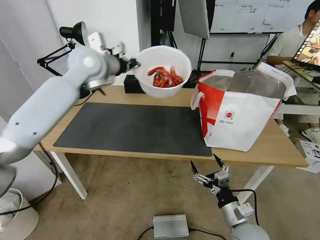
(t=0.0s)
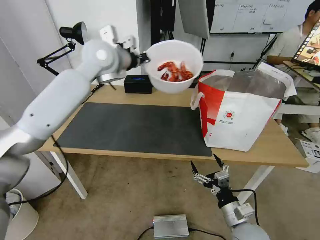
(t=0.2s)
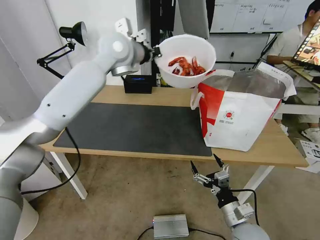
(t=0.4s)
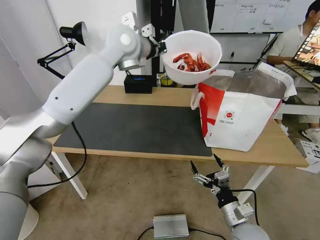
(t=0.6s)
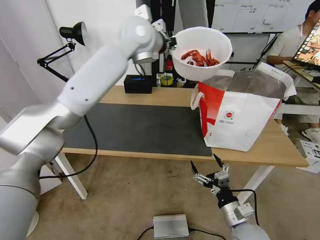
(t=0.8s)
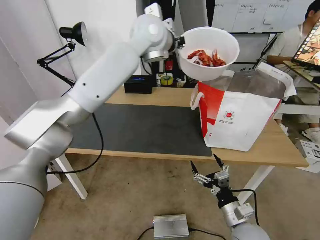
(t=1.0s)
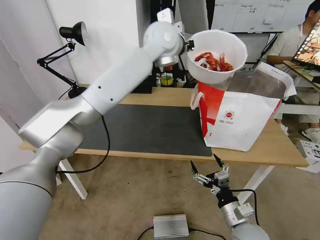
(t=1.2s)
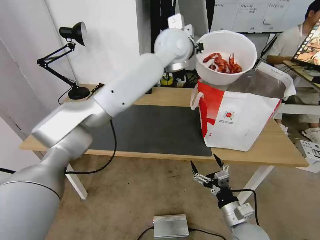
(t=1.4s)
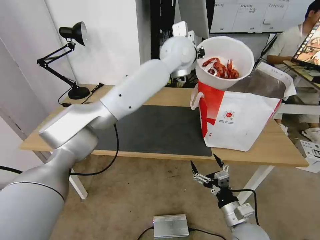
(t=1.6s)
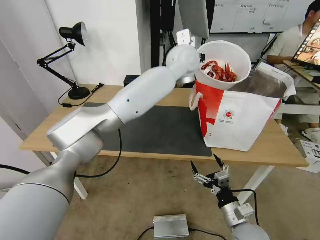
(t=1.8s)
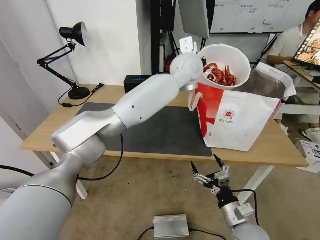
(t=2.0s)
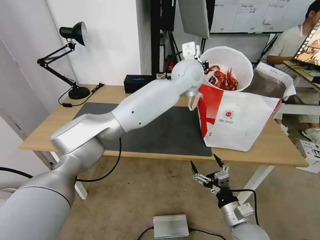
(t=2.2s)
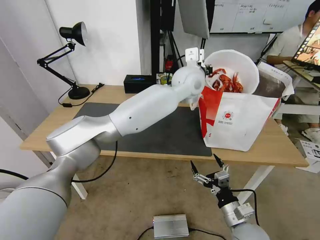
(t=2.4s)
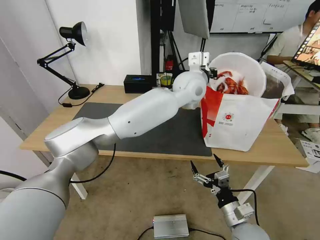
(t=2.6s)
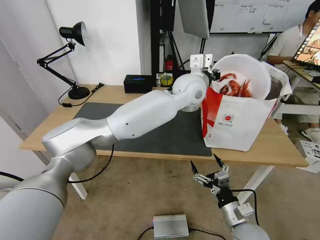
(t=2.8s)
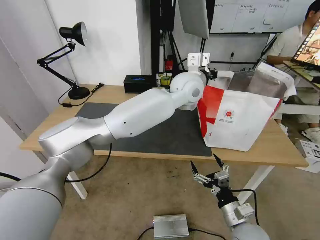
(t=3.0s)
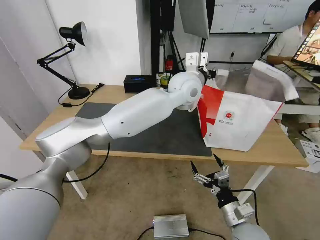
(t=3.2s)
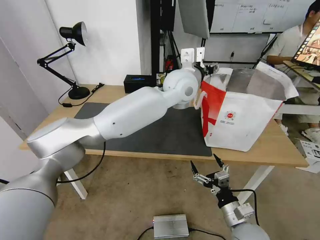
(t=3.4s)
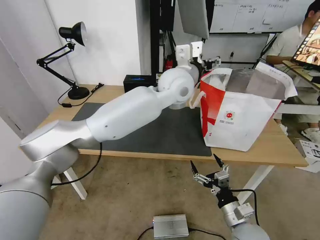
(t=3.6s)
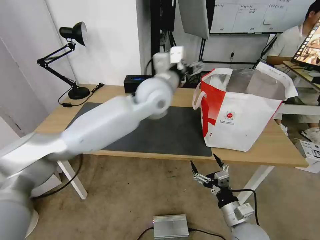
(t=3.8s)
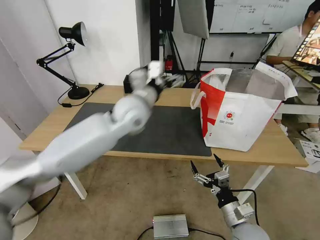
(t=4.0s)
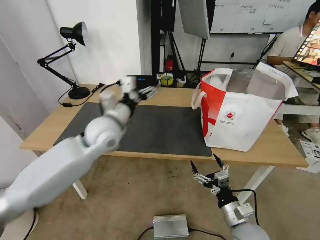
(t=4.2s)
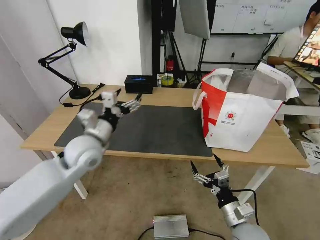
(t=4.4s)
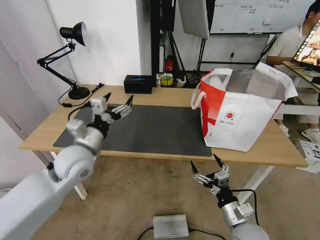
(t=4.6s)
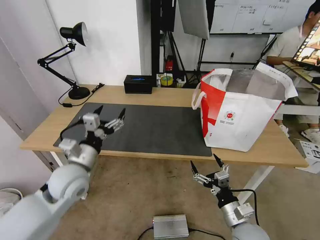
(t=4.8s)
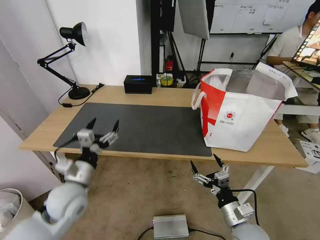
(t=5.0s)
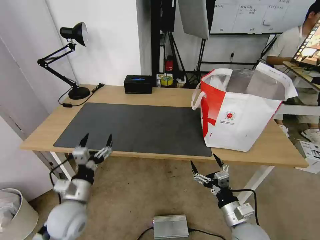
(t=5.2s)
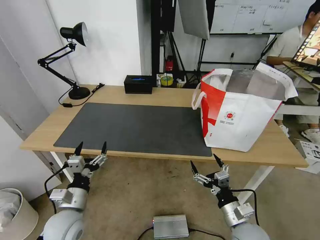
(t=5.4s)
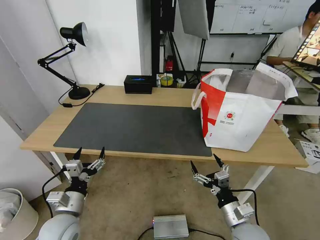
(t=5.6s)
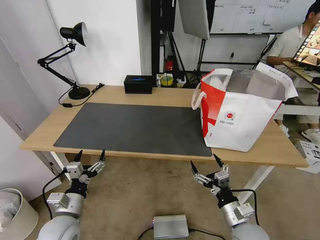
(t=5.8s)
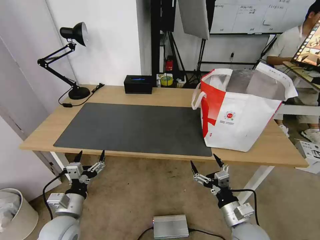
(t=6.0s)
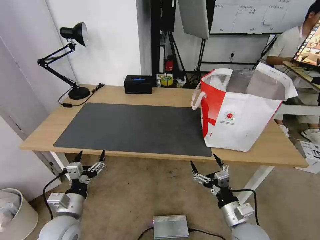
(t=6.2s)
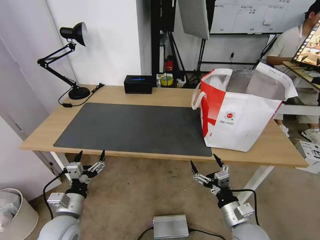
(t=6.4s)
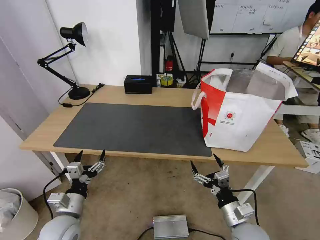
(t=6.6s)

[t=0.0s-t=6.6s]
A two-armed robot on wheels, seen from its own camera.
Task of the whole recording: Pick up the trash from the table and place it into the takeout bag.
t=0.0s to t=1.6s: The left gripper travels to the right by approximately 25 cm.
t=1.6s to t=3.2s: The left gripper heads downward and backward, covering about 10 cm, and opens.
t=3.2s to t=5.0s: The left gripper travels to the left, backward and downward by about 50 cm, and opens its fingers.
t=5.0s to t=6.6s: The left gripper is displaced downward and backward by about 10 cm.
